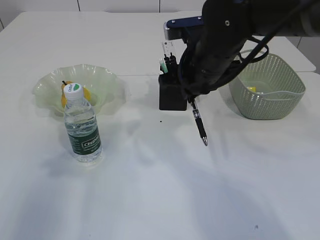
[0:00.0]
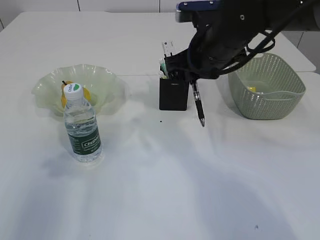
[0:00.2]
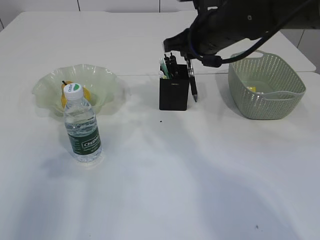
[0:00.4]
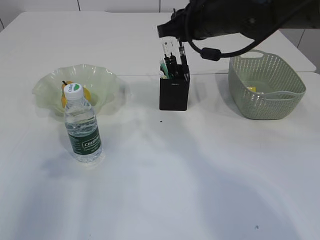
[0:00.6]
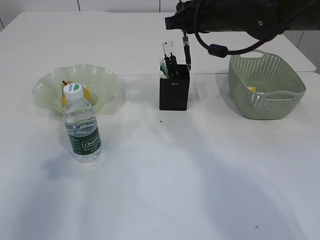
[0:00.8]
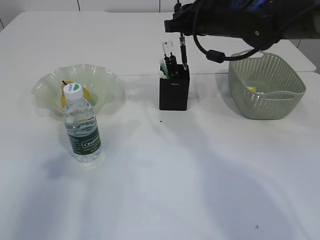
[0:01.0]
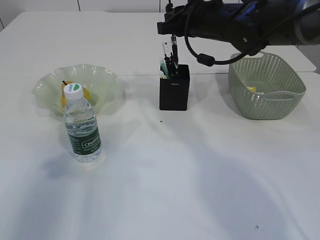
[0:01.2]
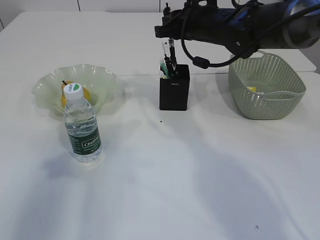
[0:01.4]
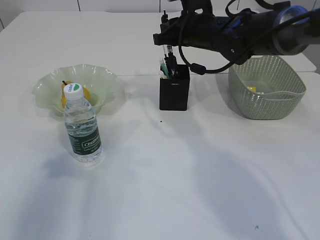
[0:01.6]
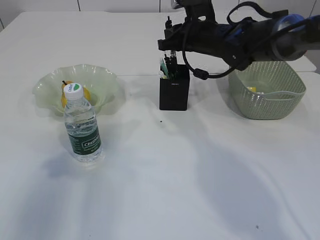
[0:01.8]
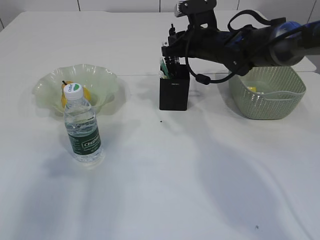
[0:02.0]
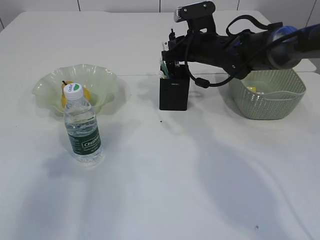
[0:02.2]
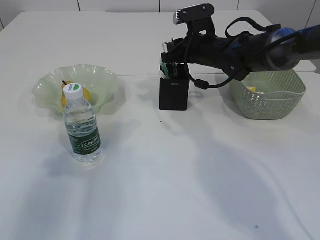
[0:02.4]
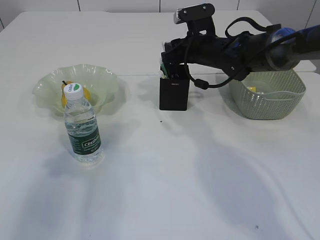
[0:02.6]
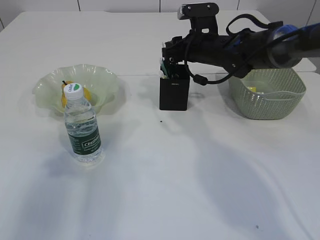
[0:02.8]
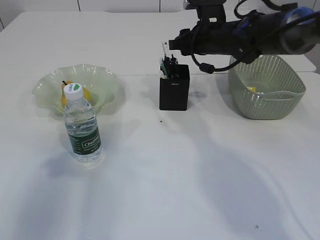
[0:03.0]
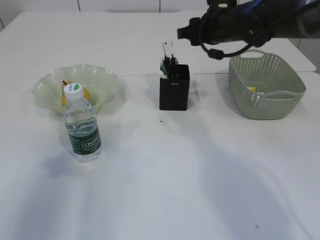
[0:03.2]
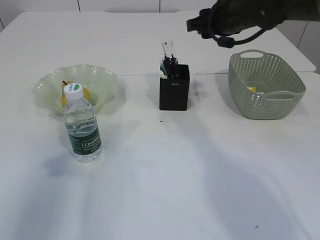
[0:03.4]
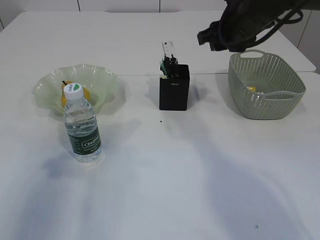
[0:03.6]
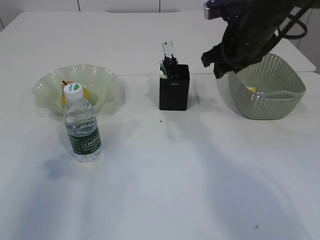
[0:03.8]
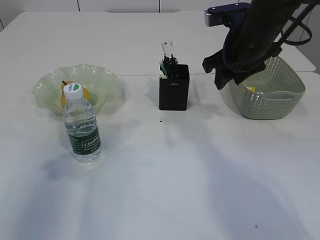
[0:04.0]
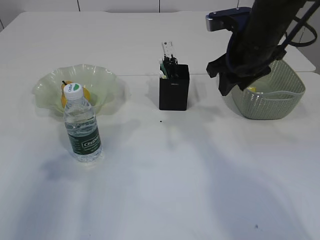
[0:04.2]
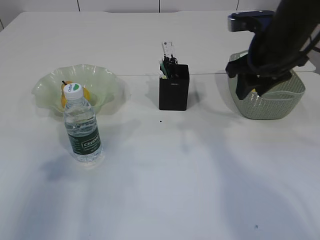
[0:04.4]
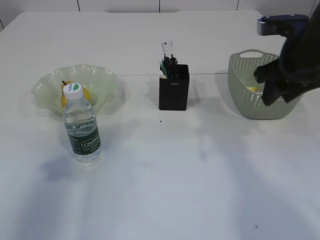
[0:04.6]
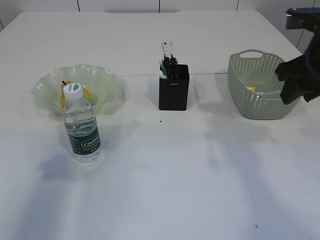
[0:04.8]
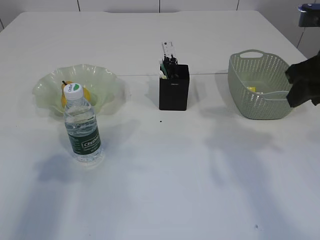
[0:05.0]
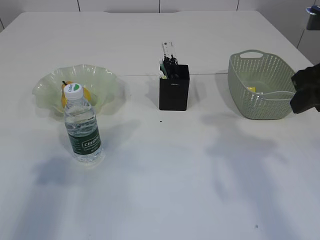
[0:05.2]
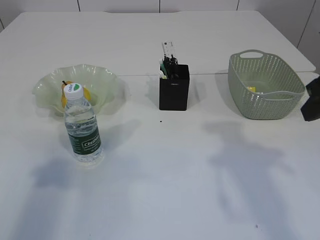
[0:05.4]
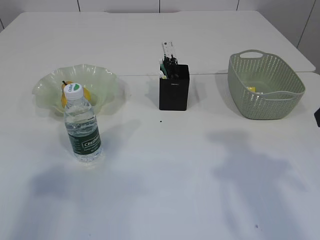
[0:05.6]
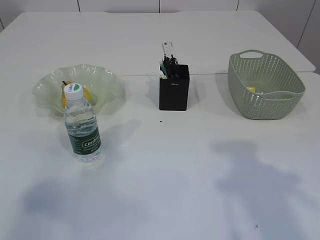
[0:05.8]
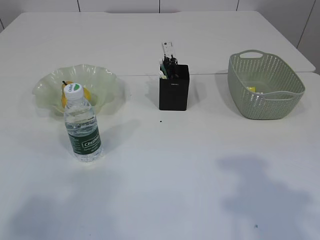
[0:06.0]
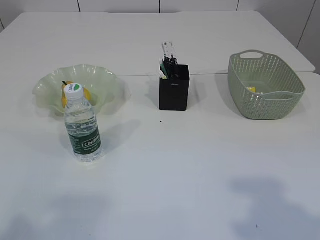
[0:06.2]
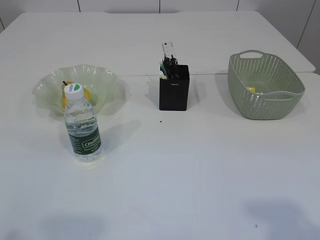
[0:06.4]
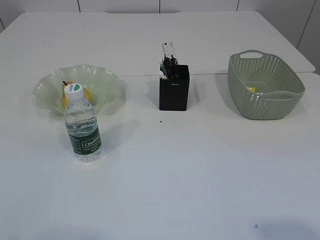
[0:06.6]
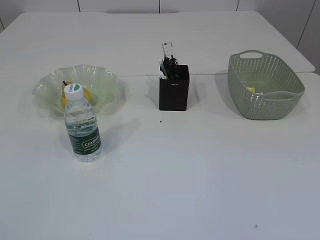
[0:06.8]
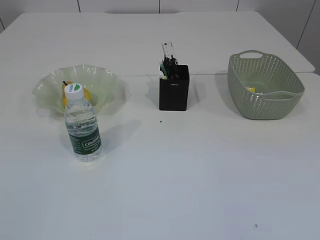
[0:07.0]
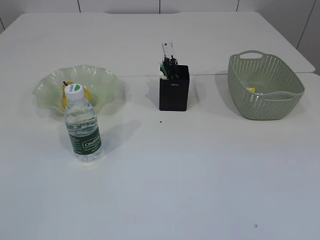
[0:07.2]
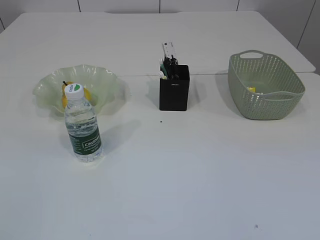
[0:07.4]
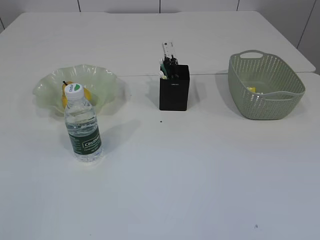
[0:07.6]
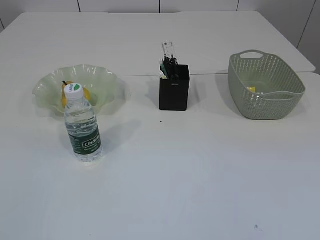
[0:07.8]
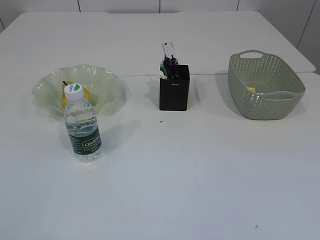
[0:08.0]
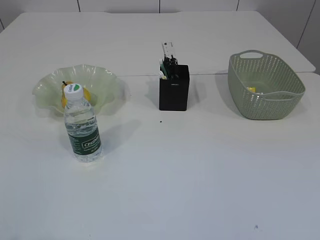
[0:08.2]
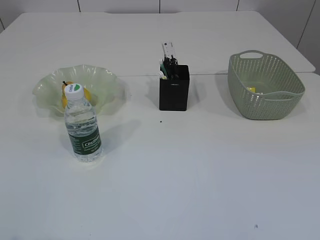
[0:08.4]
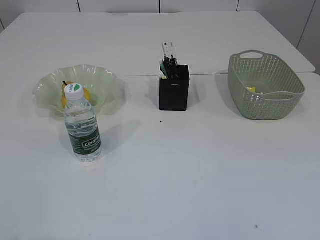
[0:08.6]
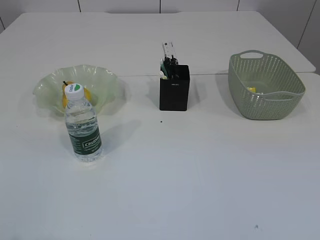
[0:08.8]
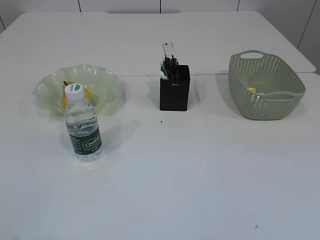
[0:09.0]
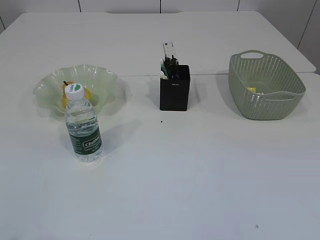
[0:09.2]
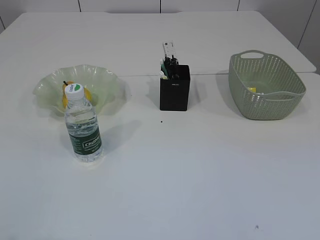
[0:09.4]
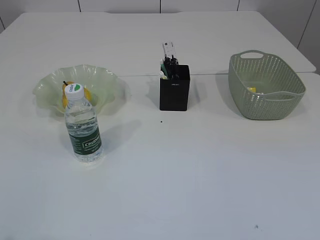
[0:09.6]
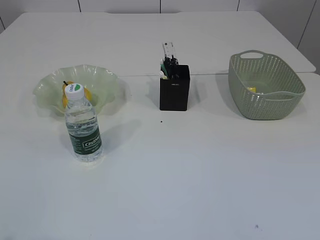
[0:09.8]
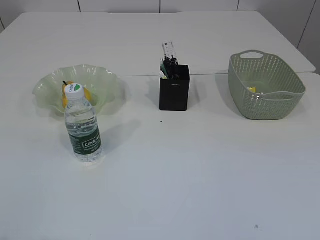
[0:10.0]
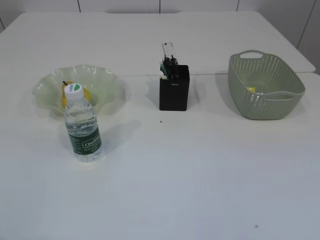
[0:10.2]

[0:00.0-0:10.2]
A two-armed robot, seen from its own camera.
Step, 0:00.0 to 0:03.0: Place the pen into the pen holder.
0:00.0 to 0:01.4: The right gripper is displaced forward by some 10 cm.
0:01.4 to 0:03.0: The right gripper opens.
0:03.0 to 0:04.4: The right gripper heads backward and to the right, covering some 15 cm.
0:04.4 to 0:05.8: The left gripper shifts roughly 10 cm backward and upward, while the right gripper goes approximately 20 cm backward.
0:05.8 to 0:07.2: The left gripper heads backward and downward, covering some 15 cm.
